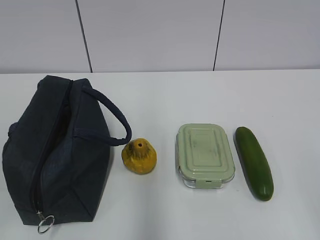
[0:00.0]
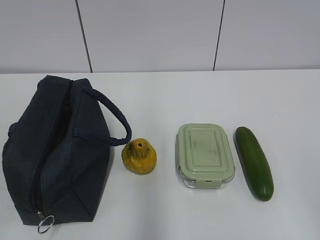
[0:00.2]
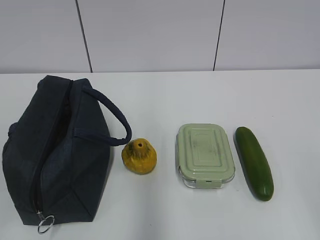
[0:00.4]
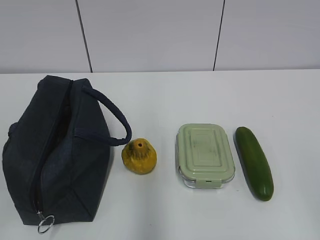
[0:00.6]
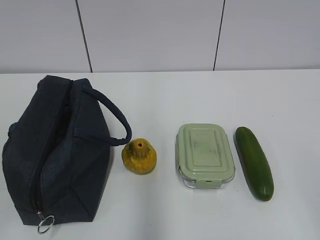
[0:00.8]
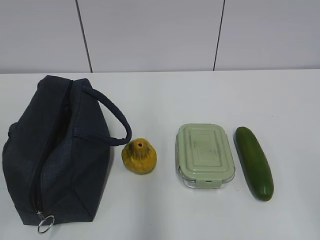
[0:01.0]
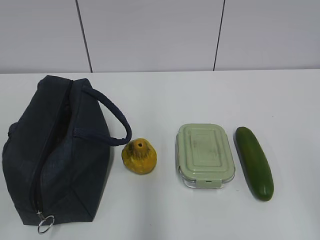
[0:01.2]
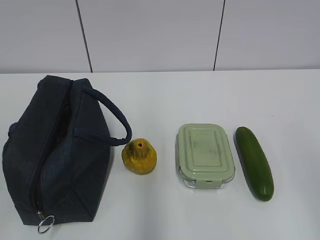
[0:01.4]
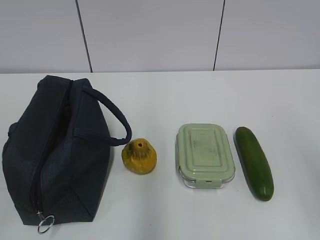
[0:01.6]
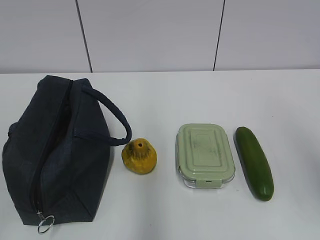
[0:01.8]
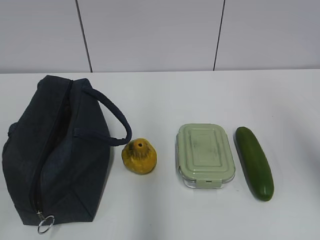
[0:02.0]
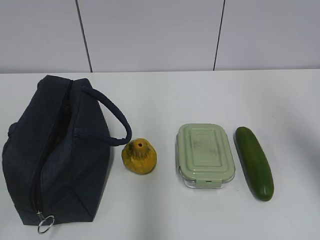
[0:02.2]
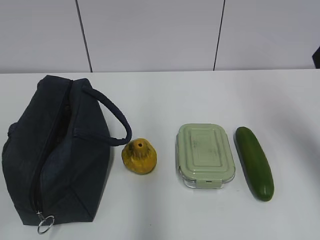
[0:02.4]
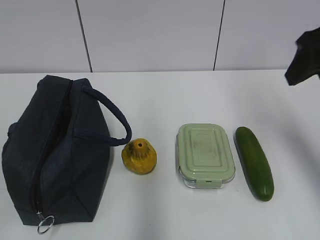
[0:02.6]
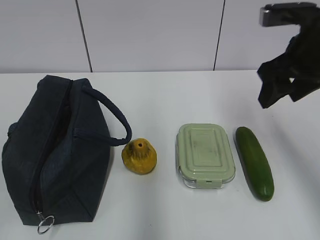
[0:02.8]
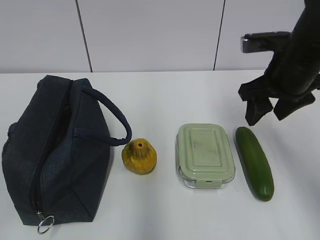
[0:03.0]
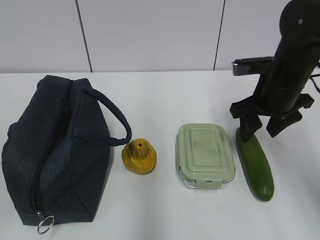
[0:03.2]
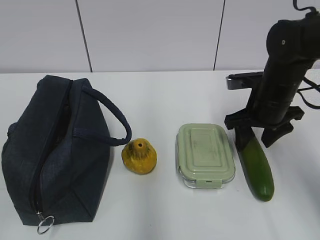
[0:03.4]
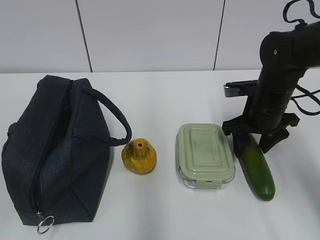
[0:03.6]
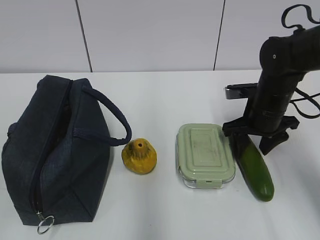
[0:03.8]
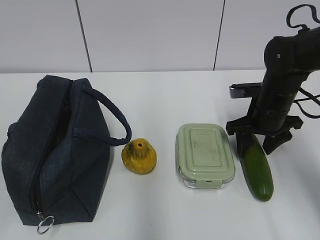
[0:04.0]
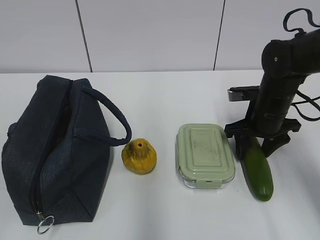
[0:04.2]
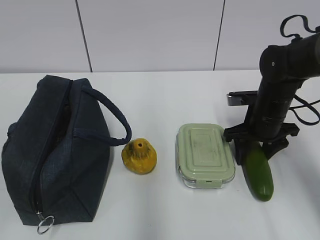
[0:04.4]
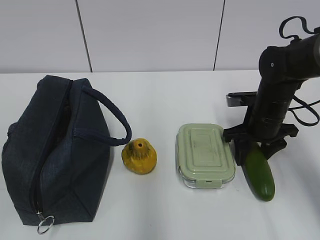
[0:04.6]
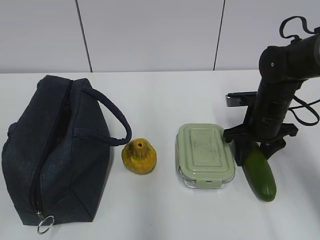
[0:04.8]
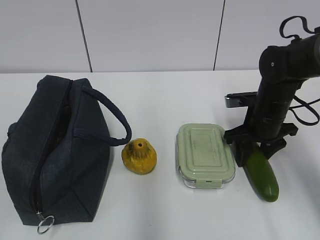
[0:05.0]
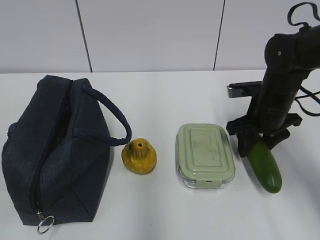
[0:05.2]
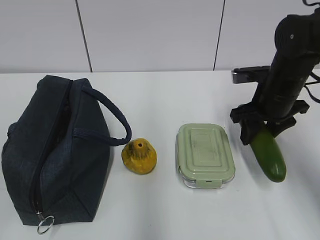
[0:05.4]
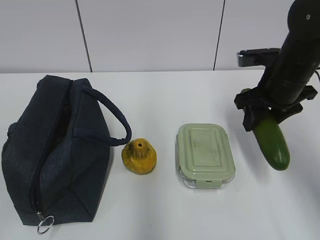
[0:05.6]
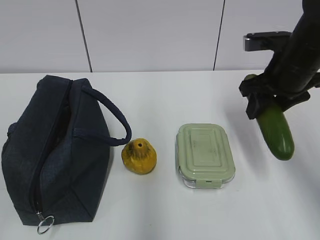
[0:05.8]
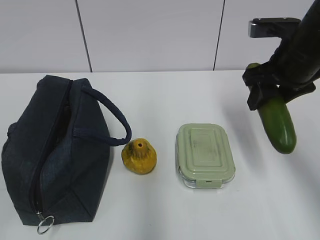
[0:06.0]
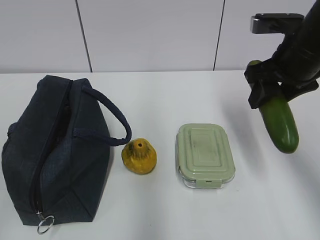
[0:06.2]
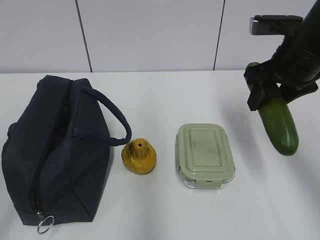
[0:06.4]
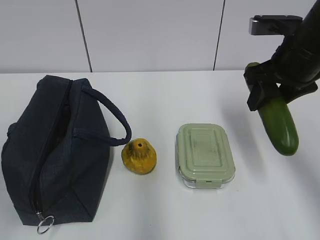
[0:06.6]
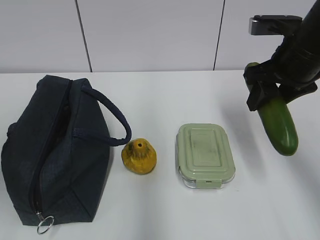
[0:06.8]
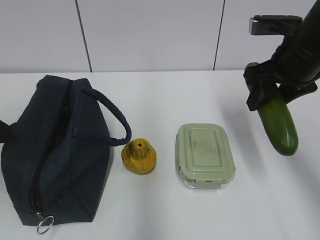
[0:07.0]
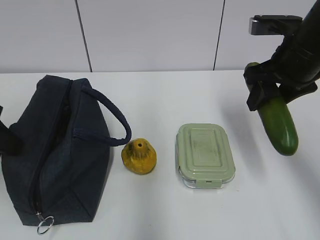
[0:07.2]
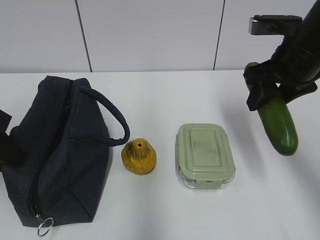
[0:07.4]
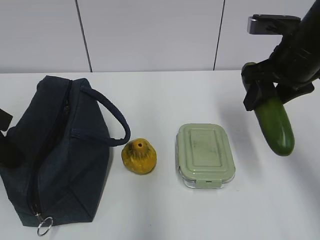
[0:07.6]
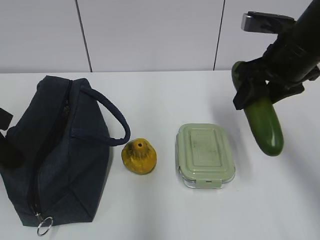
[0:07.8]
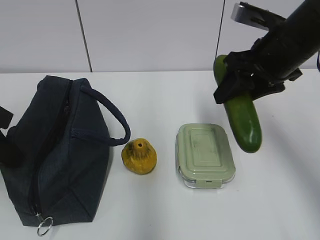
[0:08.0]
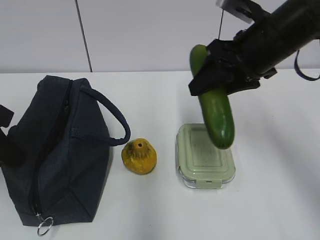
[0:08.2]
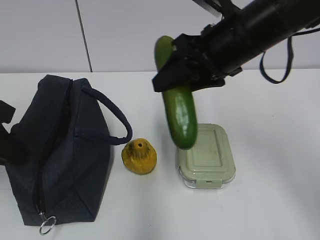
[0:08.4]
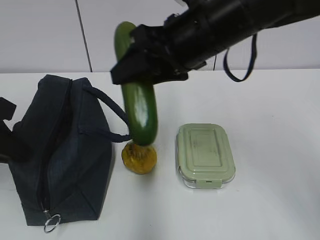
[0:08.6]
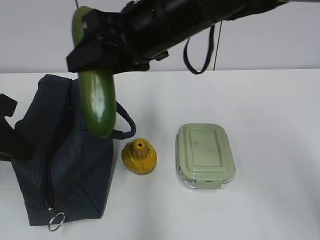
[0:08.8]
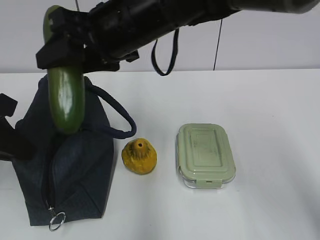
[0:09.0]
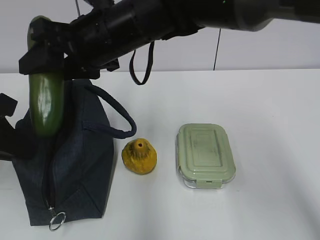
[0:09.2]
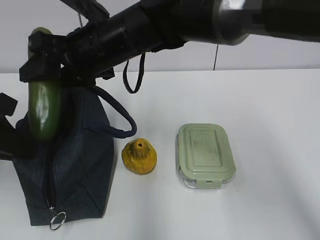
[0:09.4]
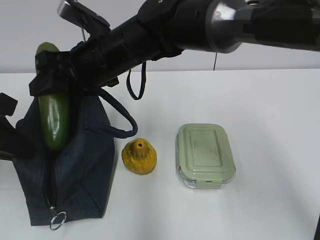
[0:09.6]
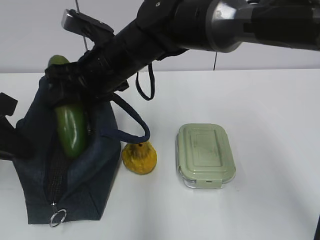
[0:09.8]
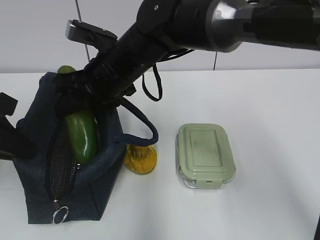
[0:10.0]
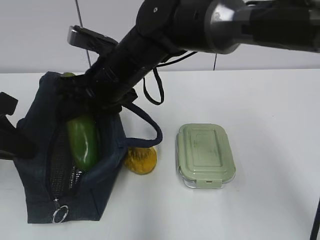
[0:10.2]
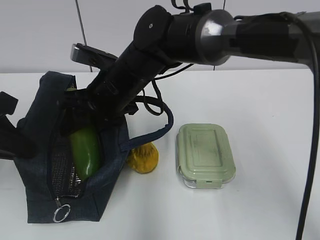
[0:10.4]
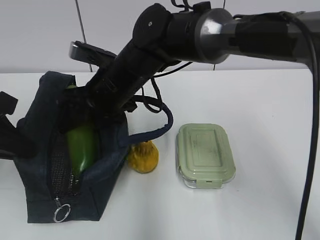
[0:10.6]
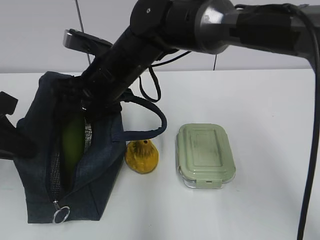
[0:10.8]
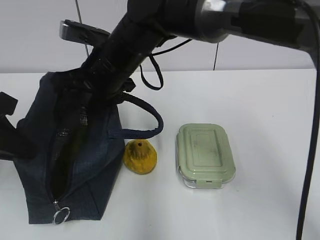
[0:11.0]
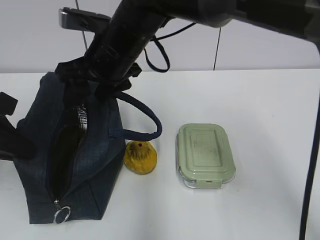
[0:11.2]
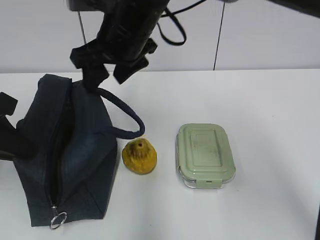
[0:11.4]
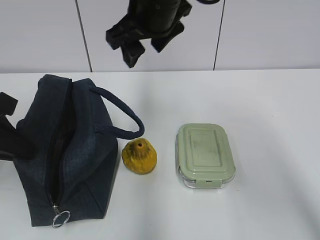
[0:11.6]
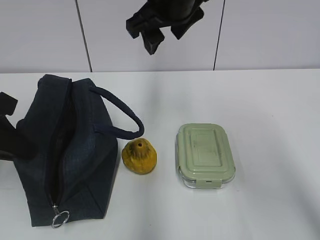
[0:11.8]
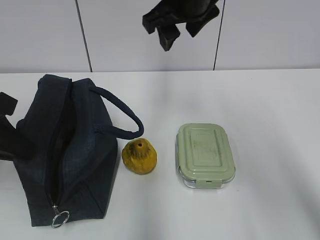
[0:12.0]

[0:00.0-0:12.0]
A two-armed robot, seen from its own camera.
Step, 0:00.0 to 0:05.0: Grab the cucumber with your right hand.
Step, 0:05.2 to 0:09.4: Grab the lunch bag with your left hand.
Step, 0:09.8 to 0:11.0: Place it into the bag with your right hand.
0:01.6 to 0:03.0: The right gripper is displaced forward by roughly 25 cm.
0:03.0 to 0:04.4: The right gripper heads downward, covering about 10 cm.
0:04.4 to 0:06.0: The right gripper shifts about 15 cm upward.
0:06.0 to 0:07.6: The left gripper is displaced forward by roughly 20 cm.
0:07.6 to 0:09.0: The right gripper is displaced to the left by about 25 cm.
0:09.0 to 0:10.4: The right gripper travels downward by approximately 10 cm.
0:10.4 to 0:12.0: The right gripper moves upward and to the right, about 20 cm.

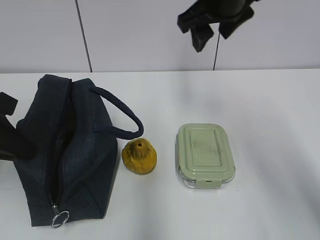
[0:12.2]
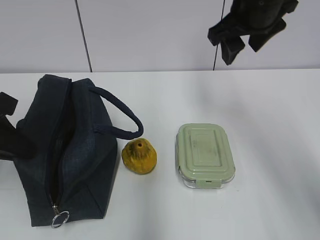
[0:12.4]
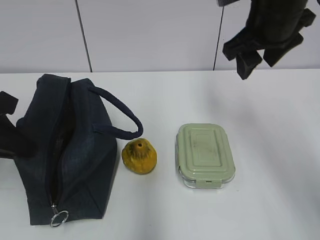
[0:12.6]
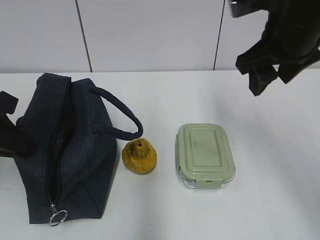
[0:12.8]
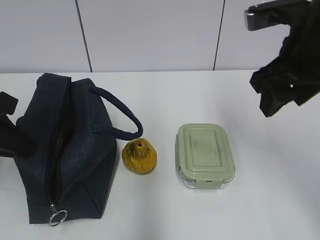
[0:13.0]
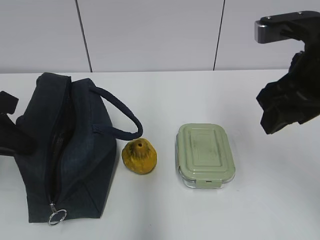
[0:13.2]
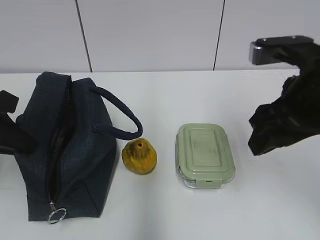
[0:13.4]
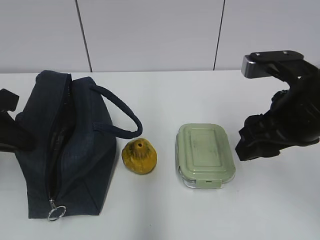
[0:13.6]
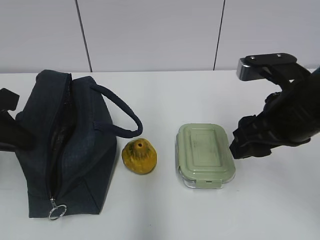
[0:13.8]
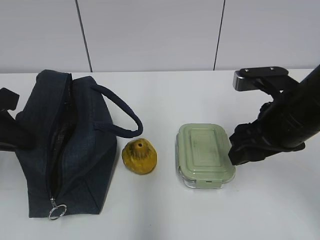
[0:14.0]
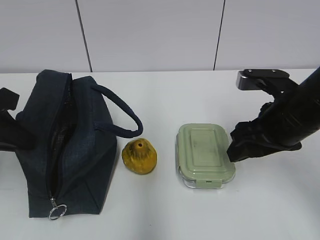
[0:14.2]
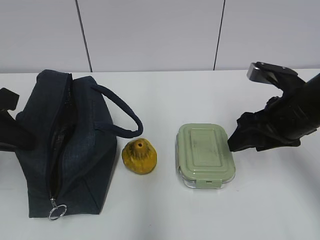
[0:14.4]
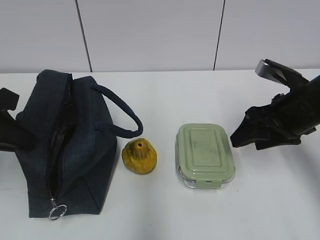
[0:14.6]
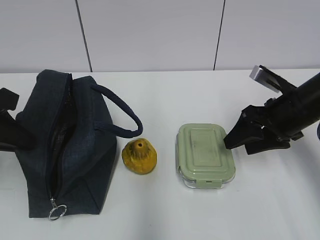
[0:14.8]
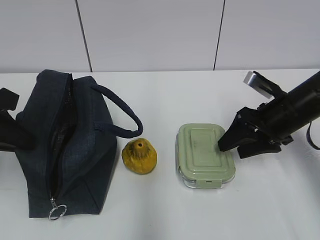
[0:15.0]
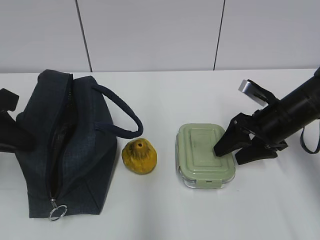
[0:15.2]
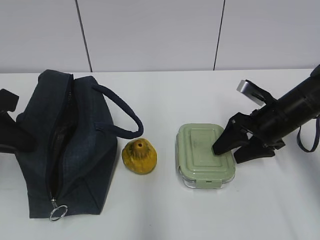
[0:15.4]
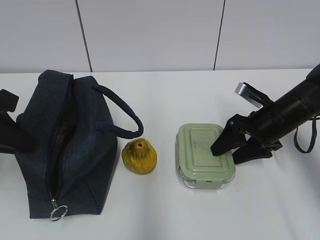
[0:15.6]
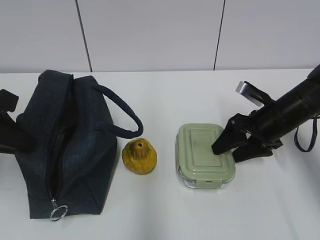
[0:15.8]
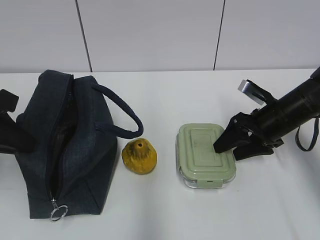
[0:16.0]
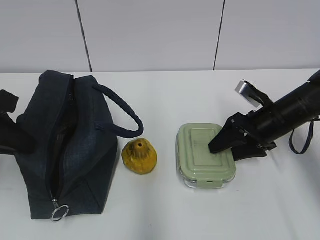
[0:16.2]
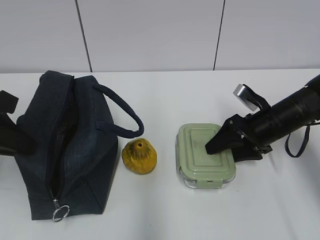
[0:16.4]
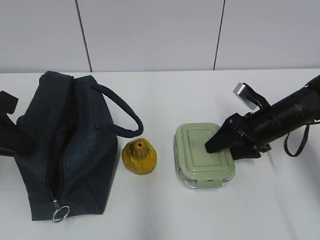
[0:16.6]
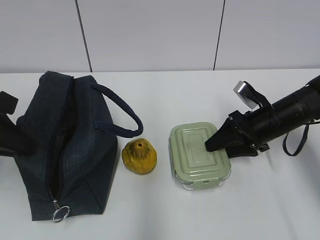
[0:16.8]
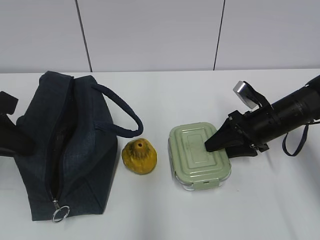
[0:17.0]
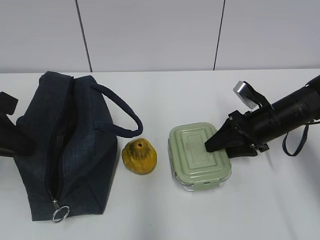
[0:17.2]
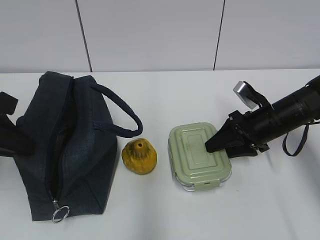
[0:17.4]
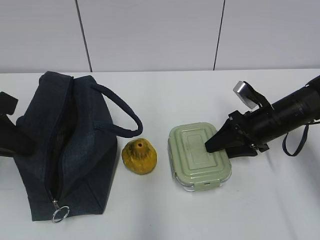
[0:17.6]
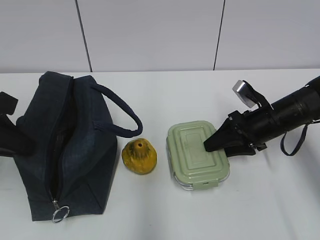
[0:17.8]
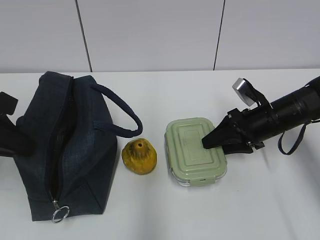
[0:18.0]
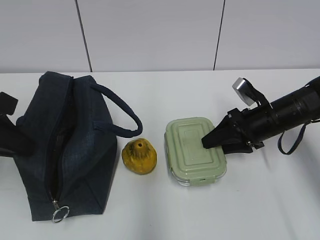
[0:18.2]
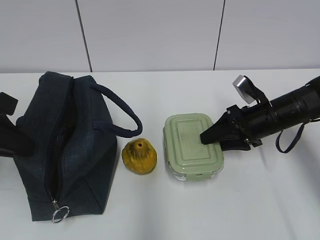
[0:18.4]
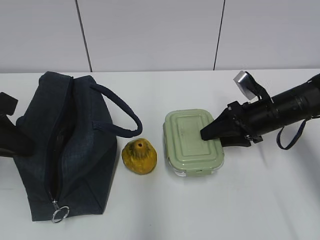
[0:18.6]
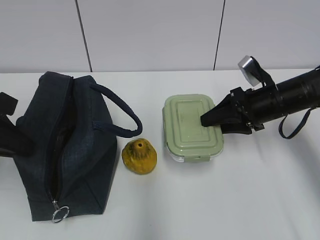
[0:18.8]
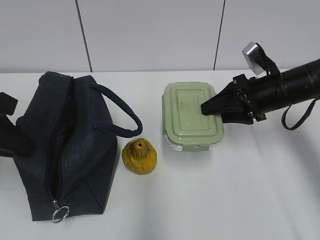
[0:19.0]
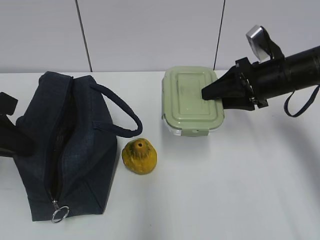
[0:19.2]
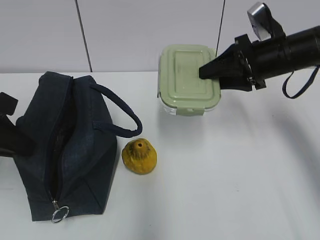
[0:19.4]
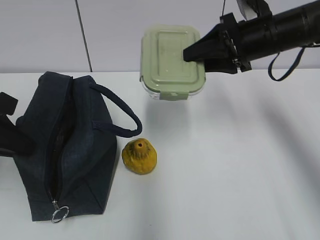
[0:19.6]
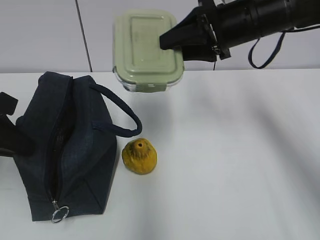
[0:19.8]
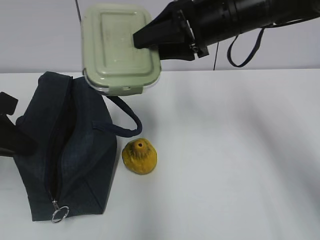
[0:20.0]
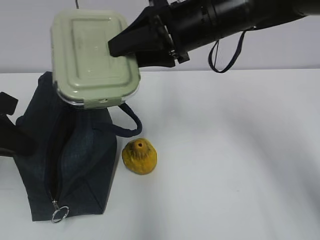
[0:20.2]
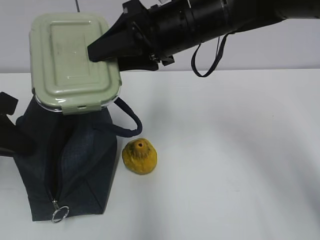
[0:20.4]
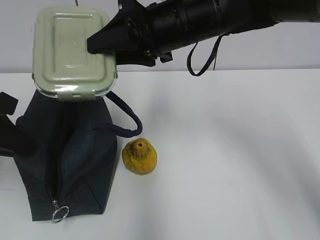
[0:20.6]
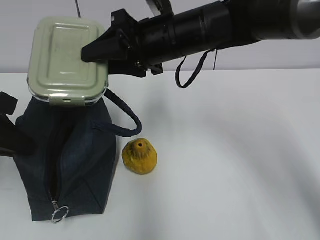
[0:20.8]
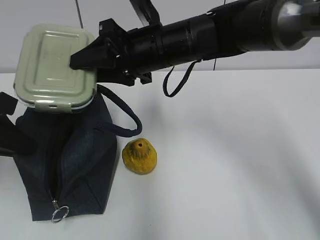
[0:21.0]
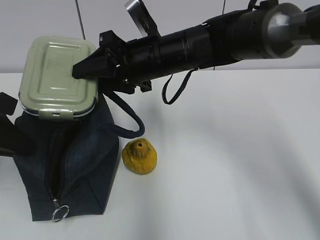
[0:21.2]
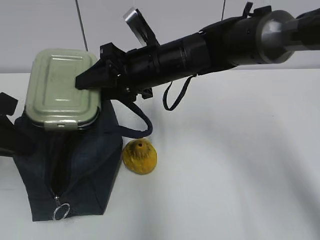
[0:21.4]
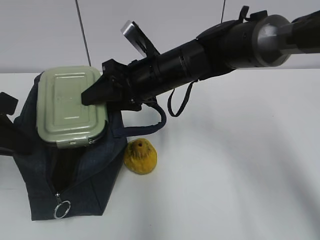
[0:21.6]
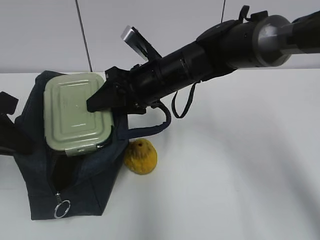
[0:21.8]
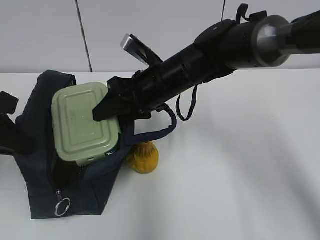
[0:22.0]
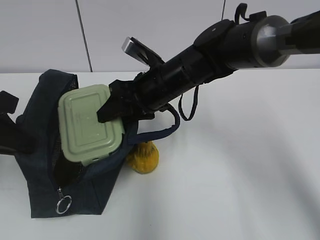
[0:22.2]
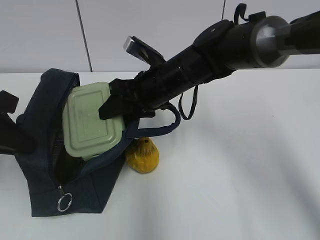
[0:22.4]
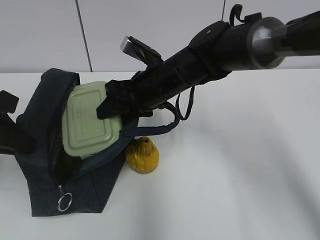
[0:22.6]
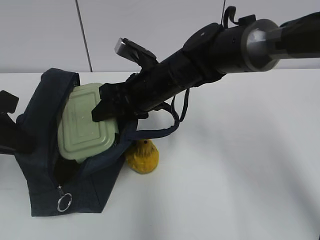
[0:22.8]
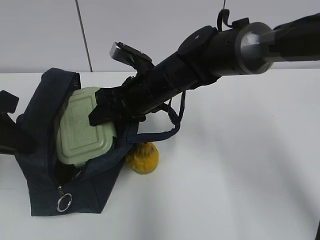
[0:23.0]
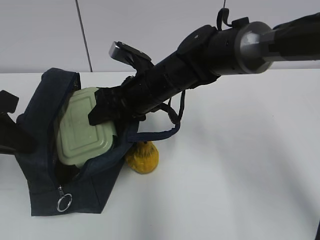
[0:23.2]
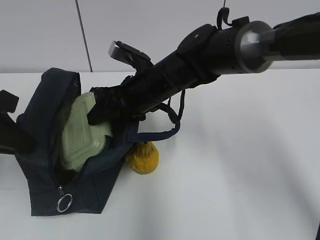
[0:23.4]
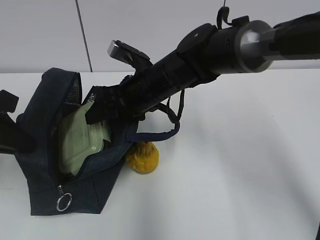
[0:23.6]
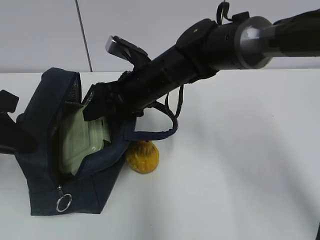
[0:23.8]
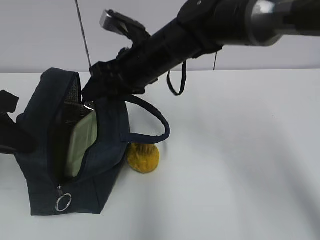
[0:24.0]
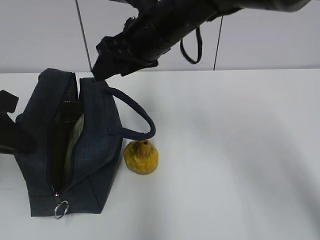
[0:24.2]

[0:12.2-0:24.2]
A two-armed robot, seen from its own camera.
Step, 0:12.2 to 0:18.4: Grab the lunch box with your right hand.
Step, 0:18.6 to 0:23.8: Place it into the bag with your right hand.
0:12.2 to 0:13.8: The right gripper goes approximately 20 cm backward, downward and to the right.
0:13.8 to 0:15.2: The right gripper moves downward, forward and to the right, approximately 15 cm.
0:15.2 to 0:18.2: The grippers make only small movements.
0:18.2 to 0:19.8: The right gripper goes some 20 cm upward and to the left.
0:19.8 to 0:21.2: The right gripper goes approximately 15 cm to the left.
0:22.6 to 0:24.2: The right gripper shifts about 10 cm upward.
